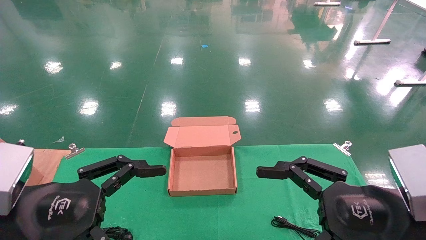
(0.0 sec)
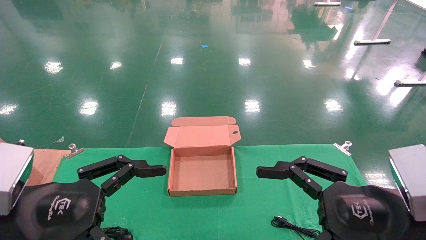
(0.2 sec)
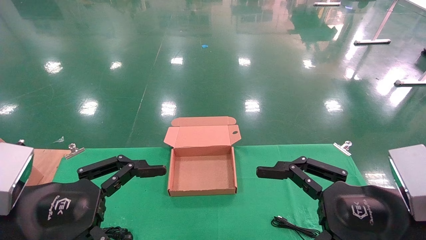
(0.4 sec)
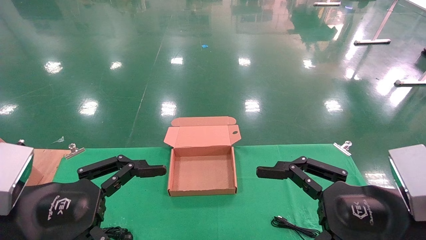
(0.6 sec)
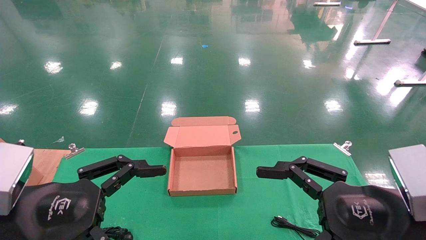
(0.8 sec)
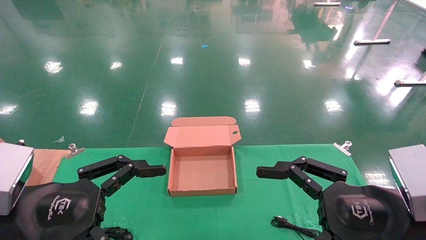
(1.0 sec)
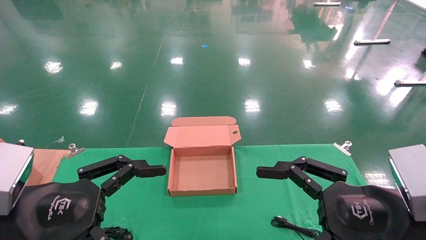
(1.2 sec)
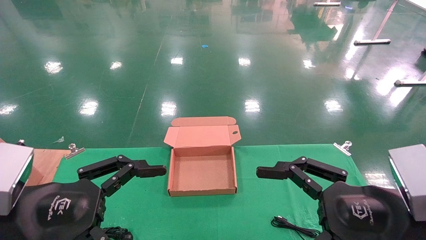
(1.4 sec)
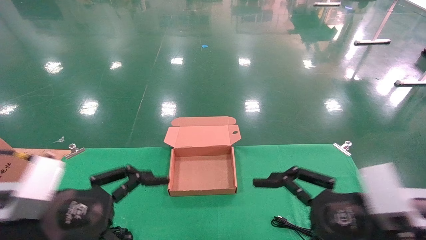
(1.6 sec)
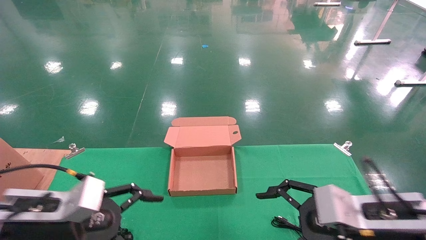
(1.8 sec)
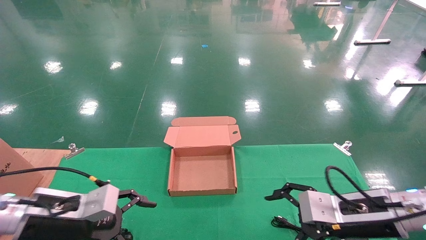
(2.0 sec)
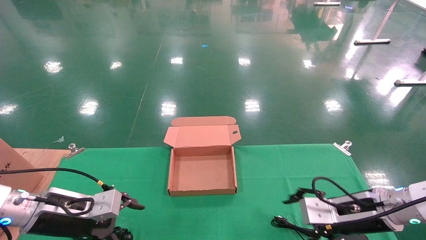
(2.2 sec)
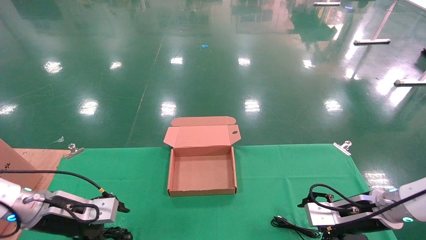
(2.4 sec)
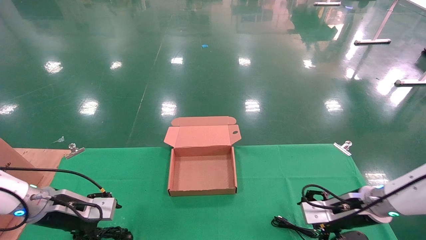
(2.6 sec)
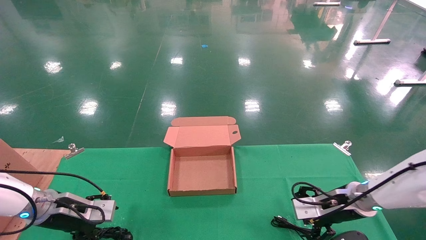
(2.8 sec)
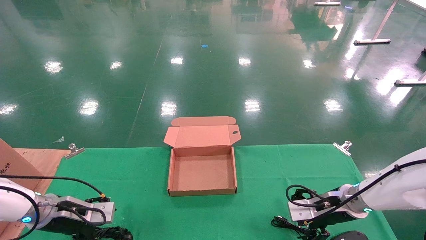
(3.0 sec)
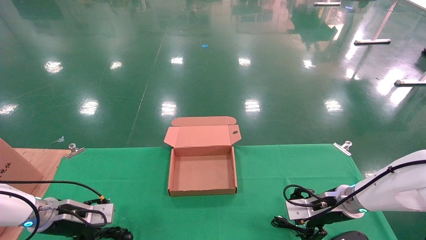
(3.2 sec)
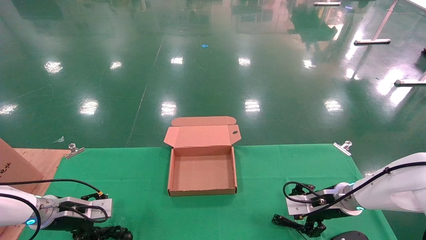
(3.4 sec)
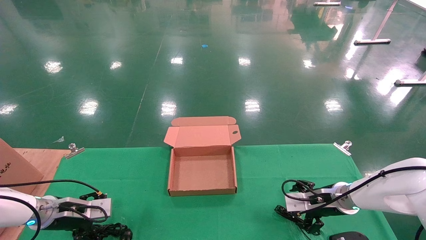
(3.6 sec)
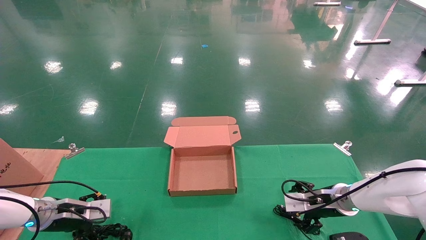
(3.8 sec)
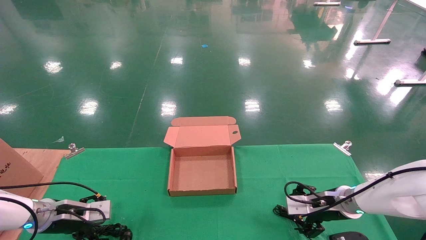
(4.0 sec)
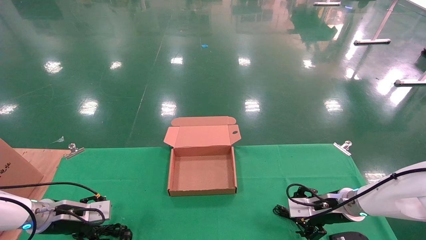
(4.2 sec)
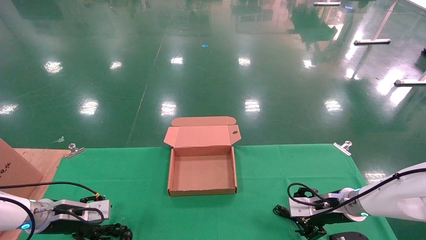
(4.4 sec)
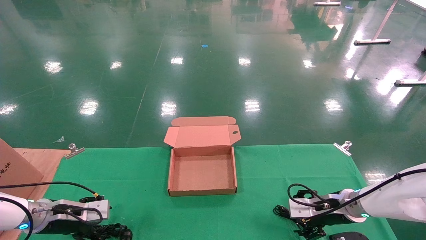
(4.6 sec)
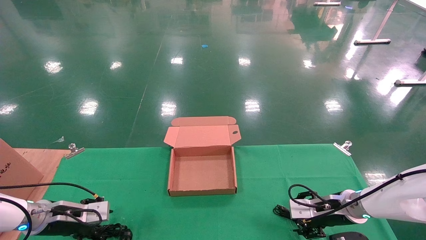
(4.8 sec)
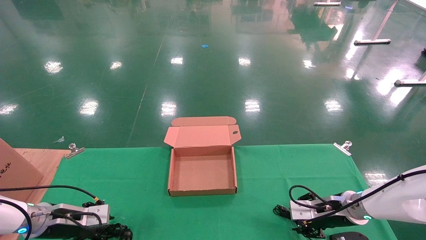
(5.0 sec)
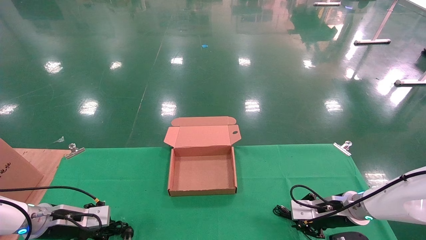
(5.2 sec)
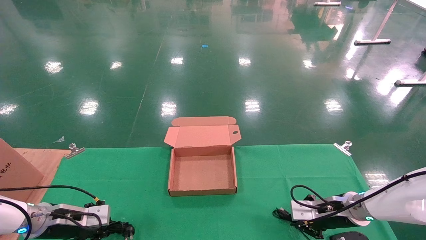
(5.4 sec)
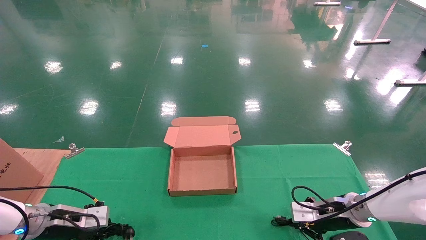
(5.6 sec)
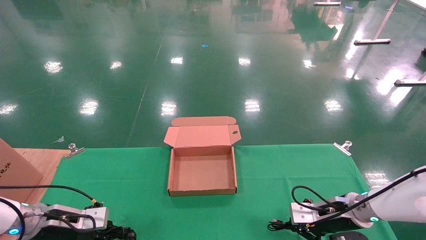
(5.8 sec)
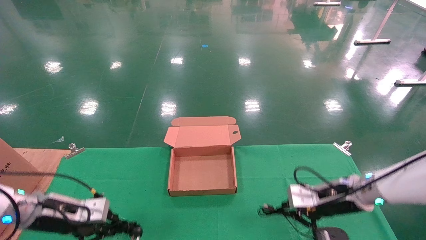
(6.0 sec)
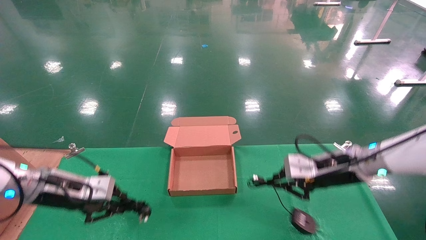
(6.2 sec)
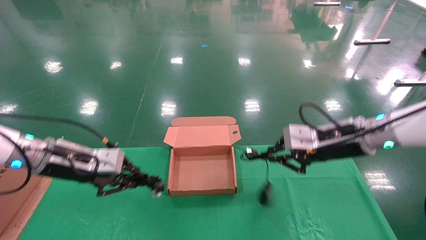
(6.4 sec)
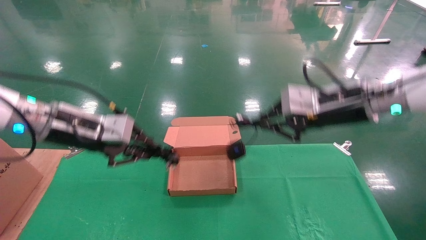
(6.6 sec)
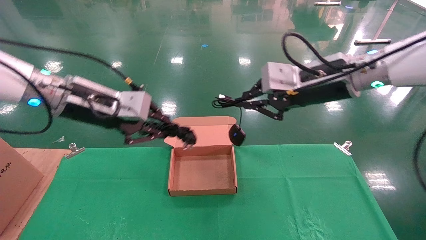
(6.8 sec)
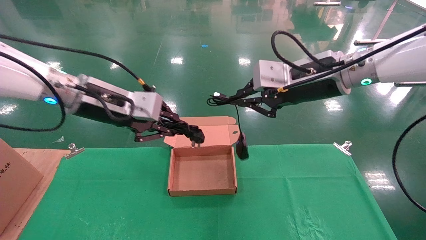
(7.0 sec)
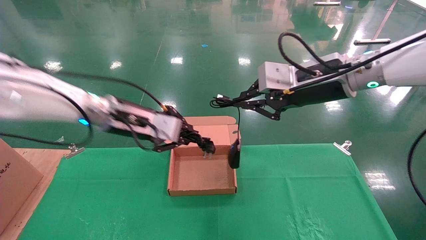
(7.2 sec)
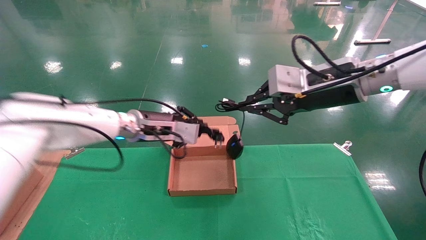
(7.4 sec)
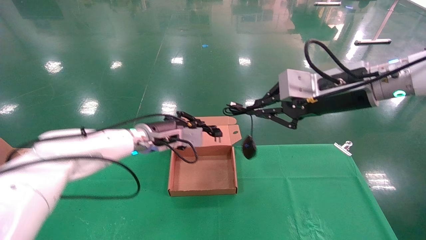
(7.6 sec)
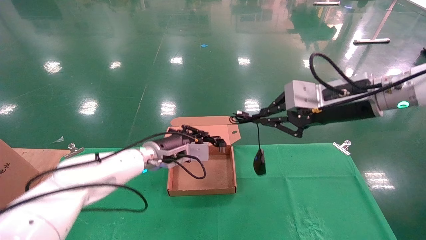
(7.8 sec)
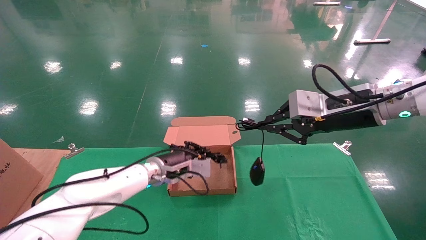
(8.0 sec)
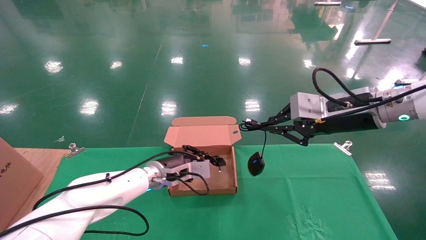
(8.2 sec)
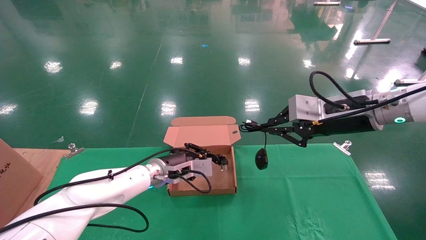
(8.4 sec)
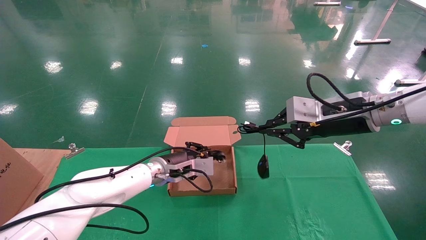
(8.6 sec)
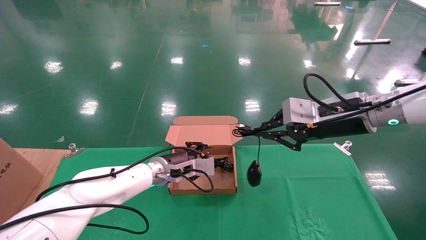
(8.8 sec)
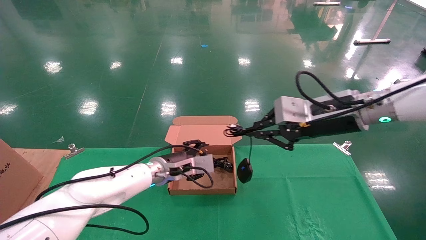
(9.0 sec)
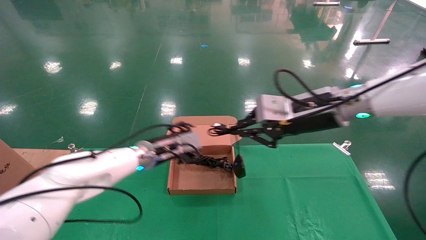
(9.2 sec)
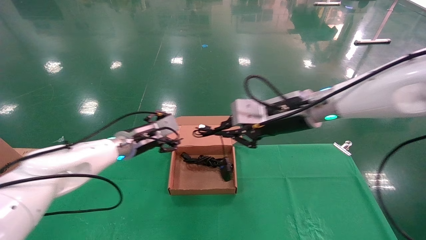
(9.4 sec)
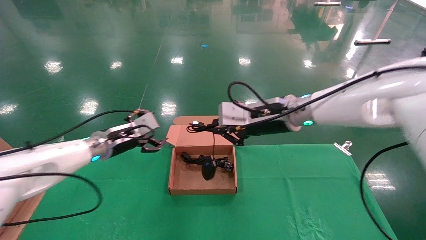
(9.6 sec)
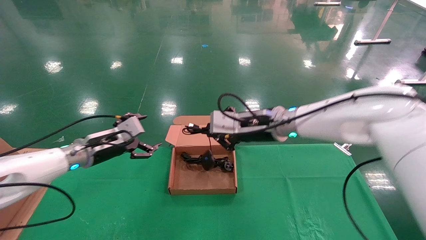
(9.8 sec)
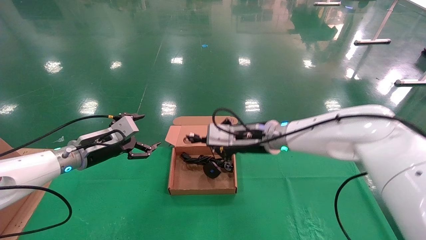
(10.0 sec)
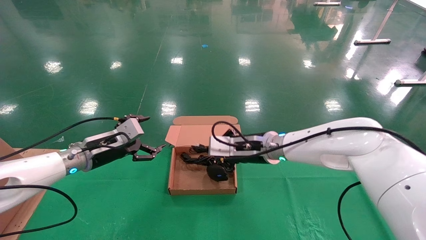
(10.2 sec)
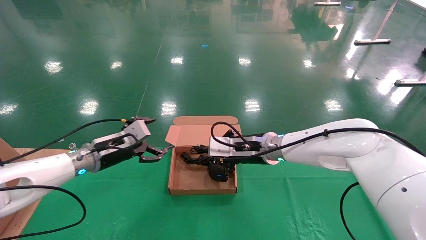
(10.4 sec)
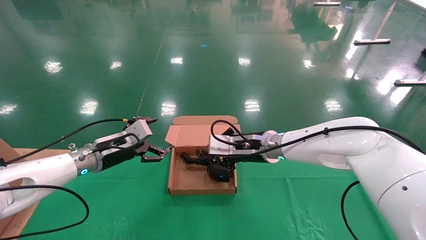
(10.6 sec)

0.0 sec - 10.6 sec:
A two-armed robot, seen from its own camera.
Step, 2.0 sec - 6.0 sec: Grab and lift both the mouse and power cord from the accessory packaging area at the same time.
0.0 sec - 1.6 sec: The grippers move only a little.
1.6 sec - 3.0 sec: The right gripper travels forward and downward by some 20 cm, while the left gripper heads forward, downward and to the left, covering approximately 25 cm.
3.0 sec - 4.6 sec: There are only small adjustments of the grippers.
4.6 sec - 6.0 sec: Both grippers move upward, roughly 5 cm. The left gripper closes up; the right gripper closes.
6.0 sec - 7.6 sec: The left gripper heads to the right, forward and upward, covering about 25 cm. The right gripper moves upward, roughly 20 cm.
7.6 sec - 9.0 sec: The left gripper goes some 5 cm downward, and opens.
9.0 sec - 10.6 sec: The right gripper travels to the left, downward and forward by about 20 cm. The left gripper goes roughly 15 cm to the left, and opens.

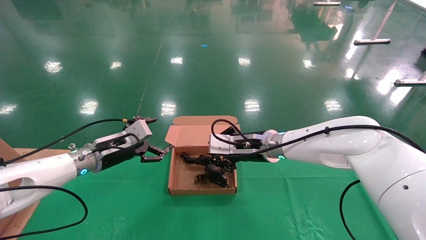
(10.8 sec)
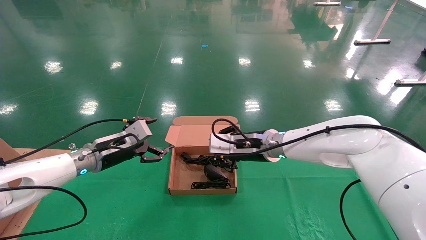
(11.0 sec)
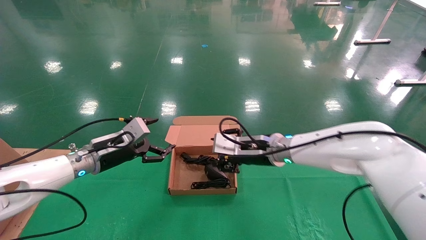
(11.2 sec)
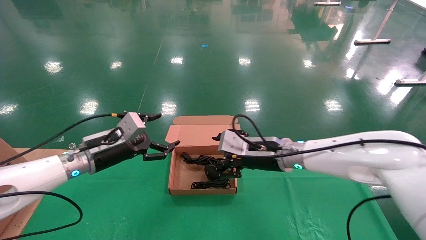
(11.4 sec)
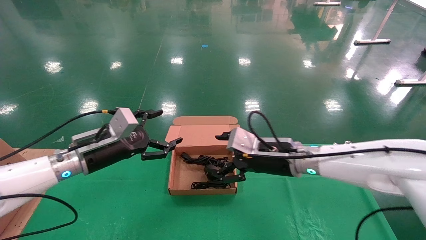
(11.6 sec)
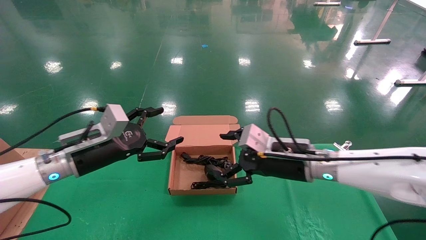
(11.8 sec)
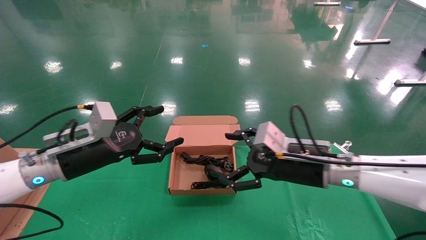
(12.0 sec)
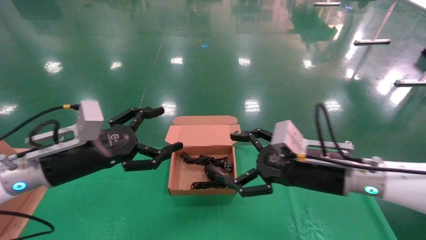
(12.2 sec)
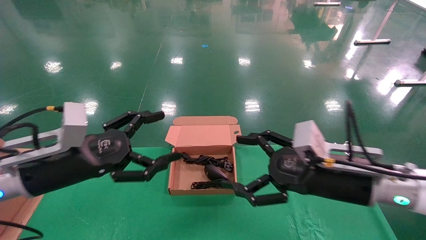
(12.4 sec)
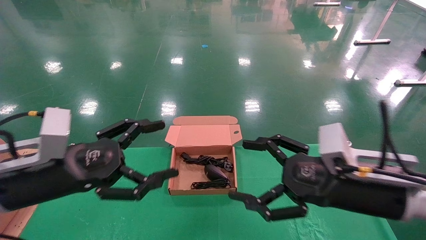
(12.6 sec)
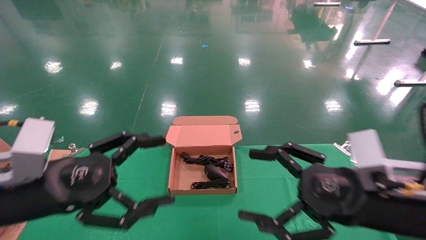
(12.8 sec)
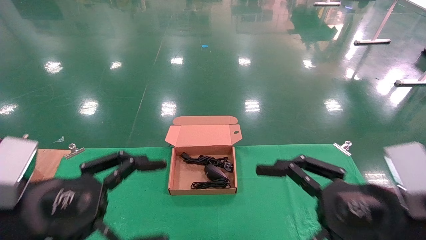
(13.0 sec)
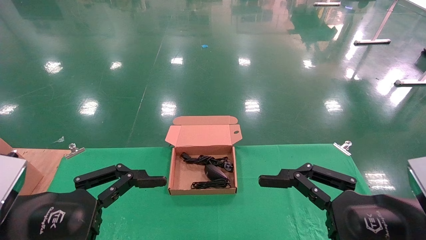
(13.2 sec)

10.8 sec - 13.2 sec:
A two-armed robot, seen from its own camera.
10.8 sec - 12.0 sec: The right gripper heads backward and to the right, covering roughly 15 cm, and opens up, while the left gripper is displaced backward by about 10 cm.
12.0 sec - 13.2 sec: The right gripper shifts approximately 20 cm backward and to the right. Meanwhile the left gripper shifts roughly 15 cm backward.
